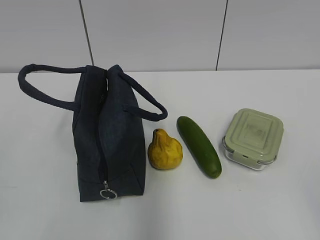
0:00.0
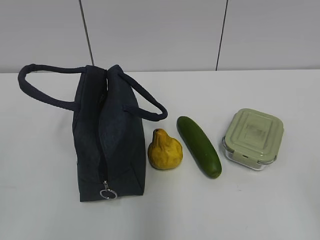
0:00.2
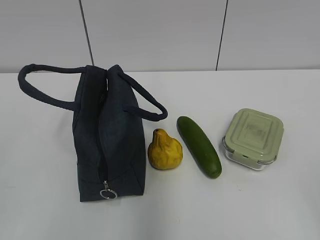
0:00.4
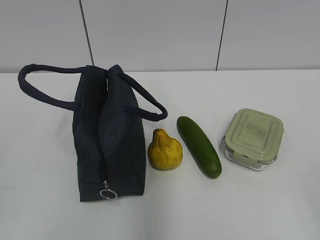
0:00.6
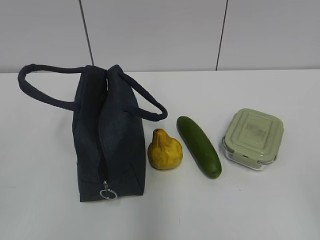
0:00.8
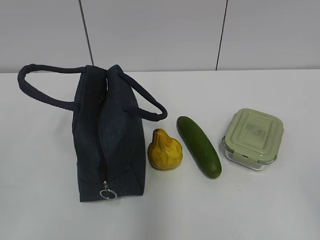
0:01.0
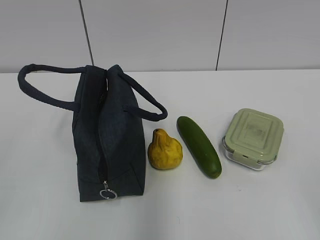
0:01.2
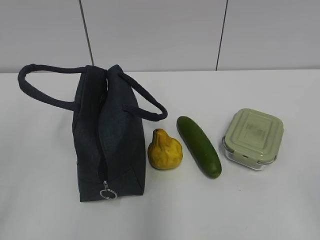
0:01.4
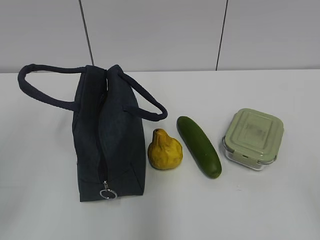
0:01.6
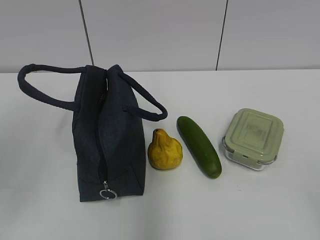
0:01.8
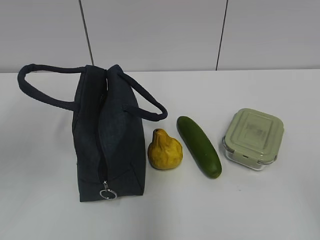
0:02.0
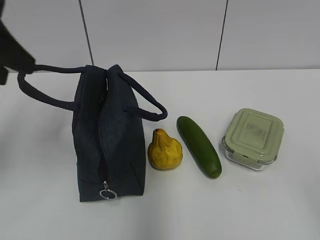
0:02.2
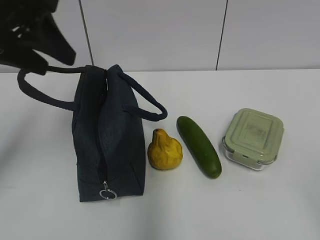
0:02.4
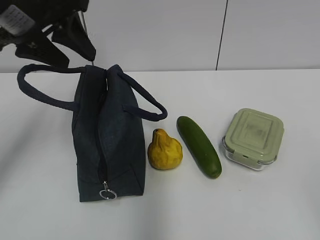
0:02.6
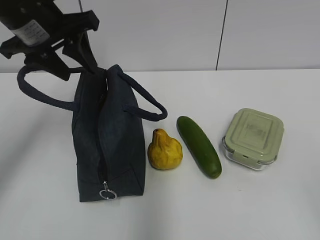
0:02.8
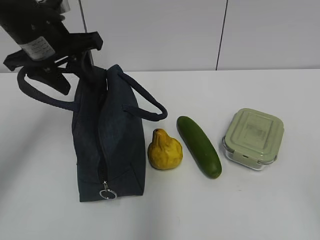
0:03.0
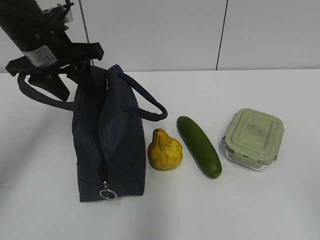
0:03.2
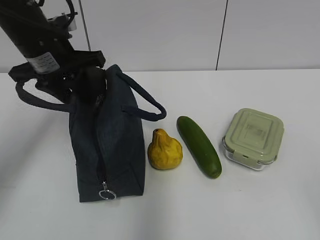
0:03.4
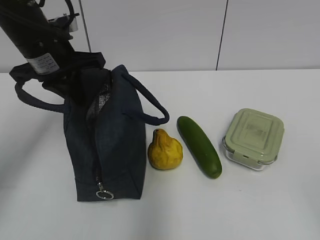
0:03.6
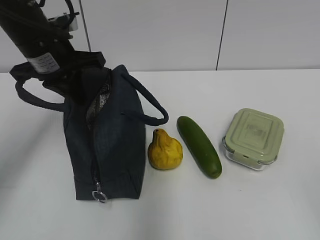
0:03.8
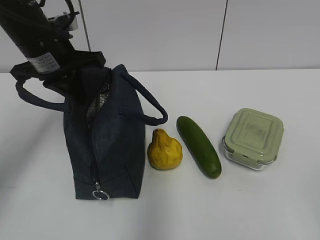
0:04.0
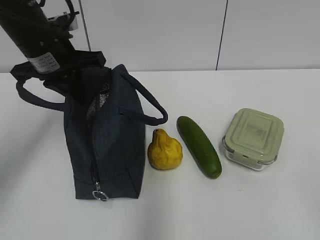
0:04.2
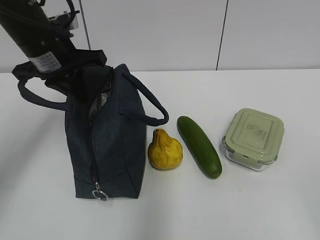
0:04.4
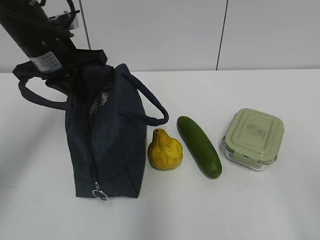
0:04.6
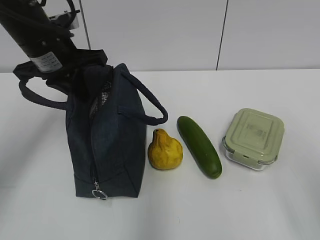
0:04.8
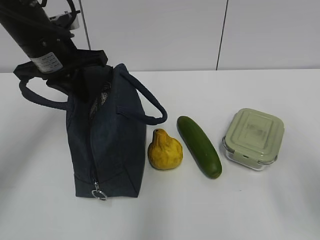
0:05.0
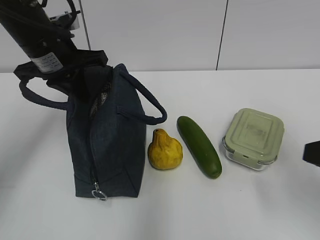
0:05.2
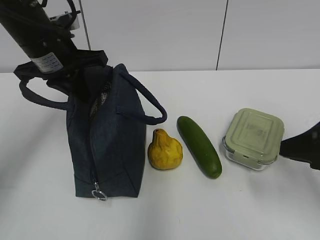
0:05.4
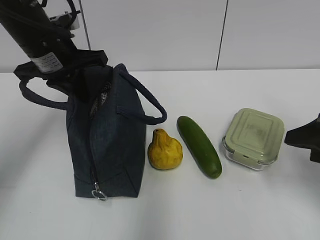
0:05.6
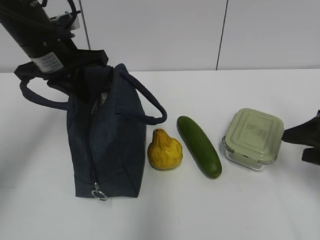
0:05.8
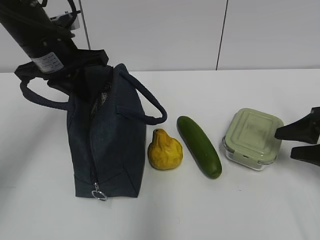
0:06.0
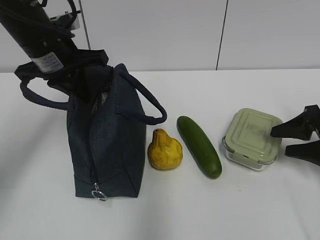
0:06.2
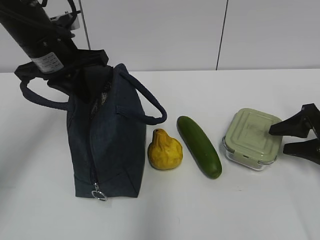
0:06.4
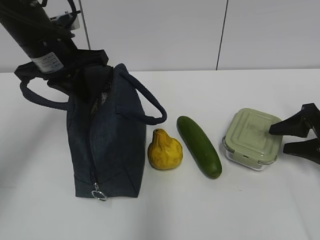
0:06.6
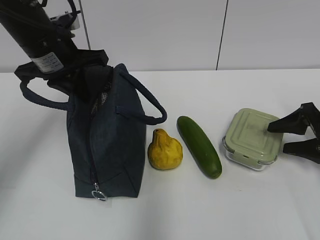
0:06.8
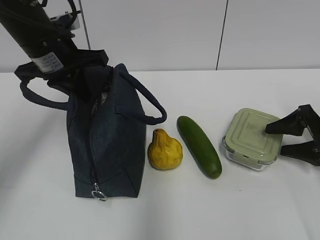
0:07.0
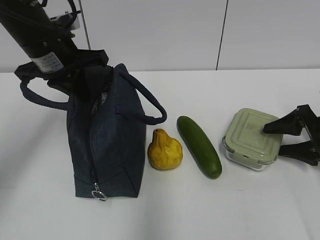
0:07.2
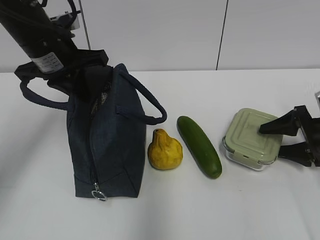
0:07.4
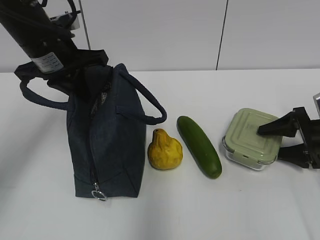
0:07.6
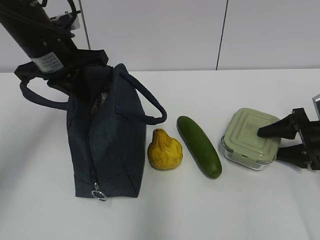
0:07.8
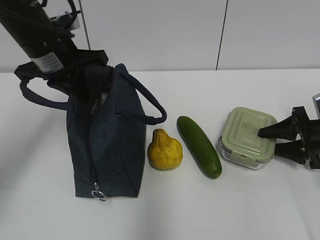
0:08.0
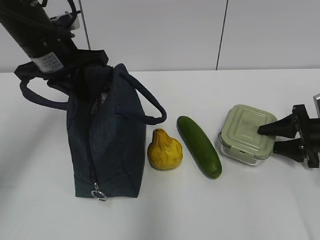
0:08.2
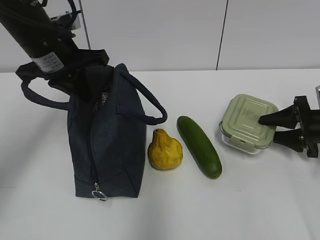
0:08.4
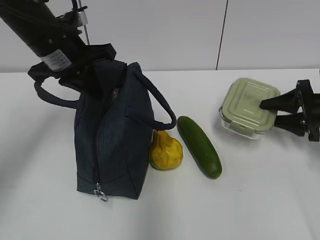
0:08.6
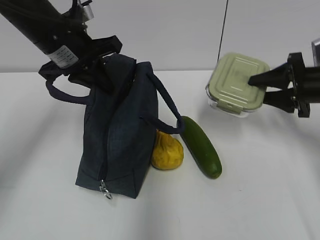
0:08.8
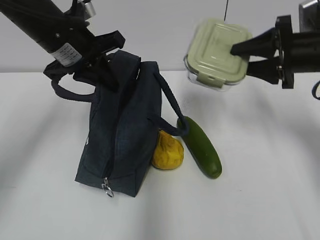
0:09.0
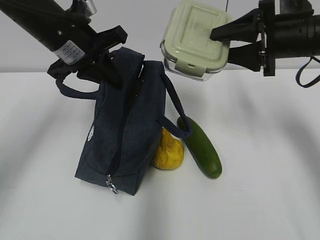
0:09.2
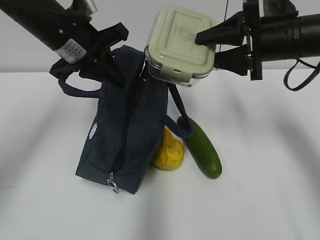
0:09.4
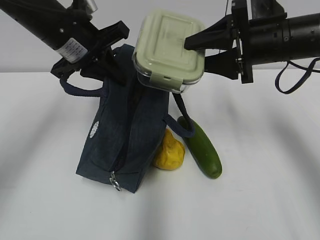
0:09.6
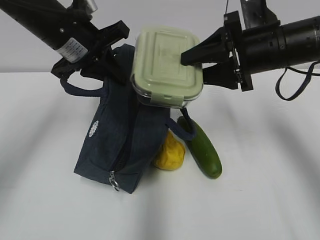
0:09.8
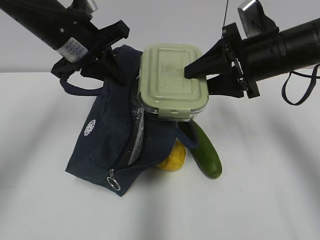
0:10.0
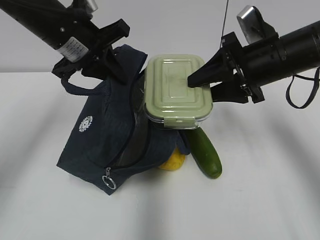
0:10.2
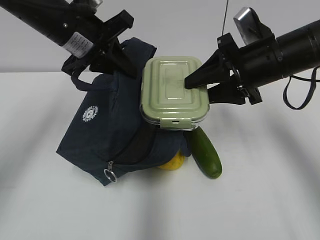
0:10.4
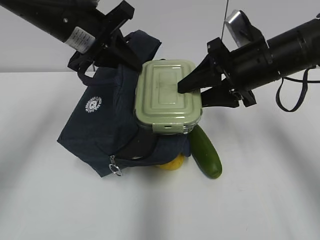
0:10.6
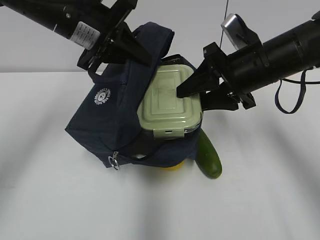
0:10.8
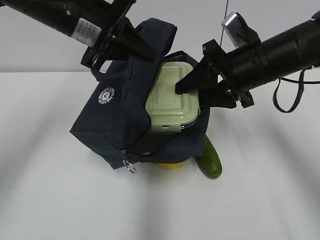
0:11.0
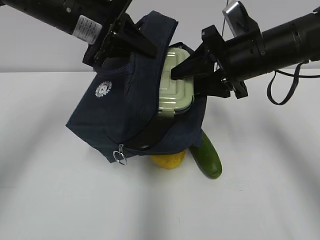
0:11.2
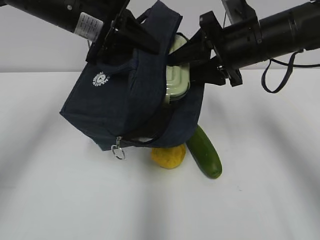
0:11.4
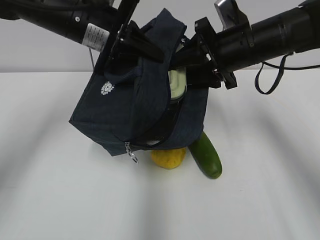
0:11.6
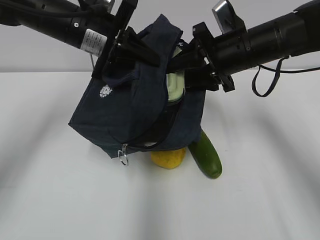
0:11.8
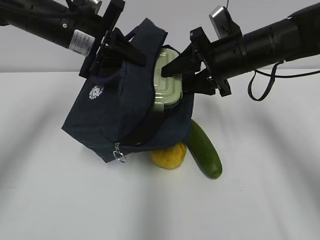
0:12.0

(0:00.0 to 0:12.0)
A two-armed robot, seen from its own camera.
0:01.6 - 0:03.0: The left gripper travels forward by roughly 30 cm.
0:03.0 - 0:04.4: The left gripper closes its fingers.
0:04.4 - 0:06.0: The right gripper is displaced forward and downward by about 30 cm.
0:06.0 - 0:07.6: The right gripper heads forward and downward, covering roughly 10 cm.
0:07.6 - 0:09.0: The right gripper moves upward and to the left, approximately 15 cm.
0:09.0 - 0:10.4: The right gripper heads to the left, covering some 10 cm.
0:10.4 - 0:12.0: The right gripper ends up about 5 cm from where it was.

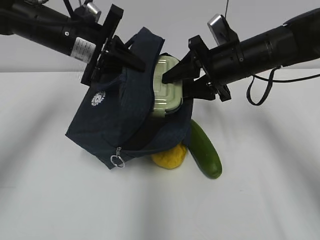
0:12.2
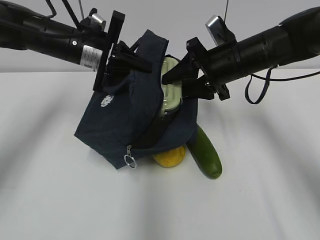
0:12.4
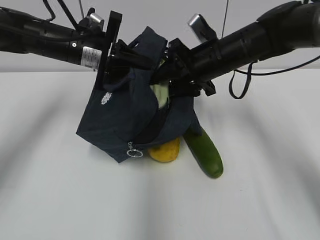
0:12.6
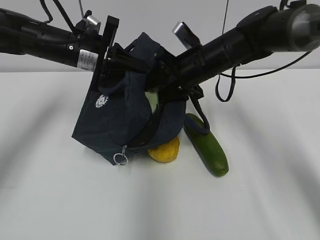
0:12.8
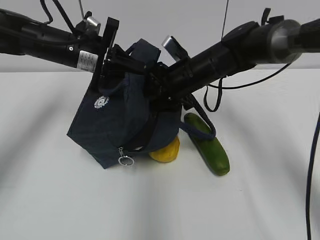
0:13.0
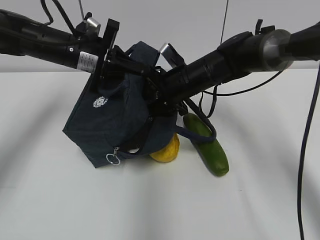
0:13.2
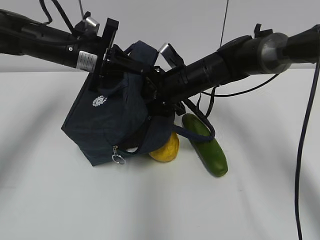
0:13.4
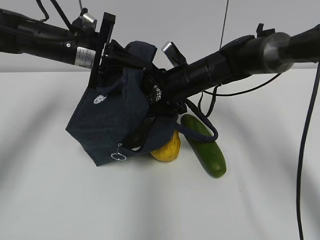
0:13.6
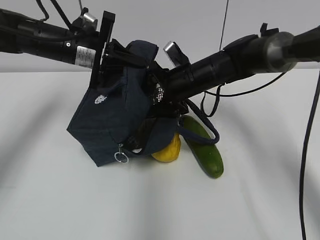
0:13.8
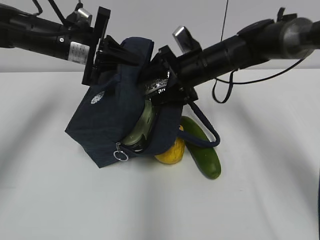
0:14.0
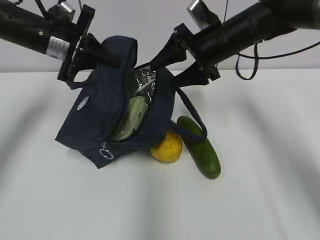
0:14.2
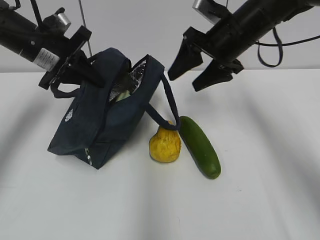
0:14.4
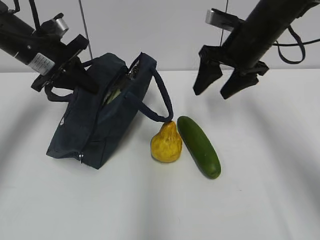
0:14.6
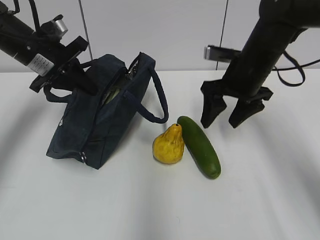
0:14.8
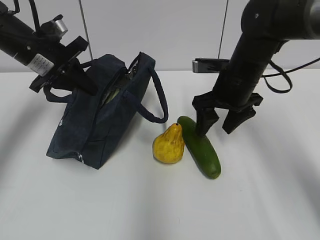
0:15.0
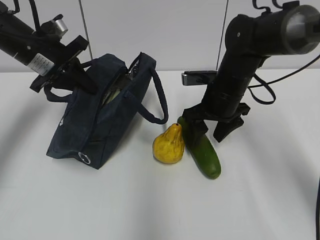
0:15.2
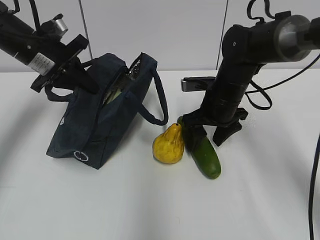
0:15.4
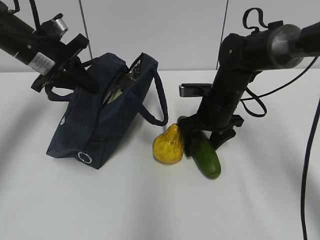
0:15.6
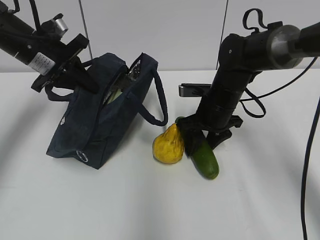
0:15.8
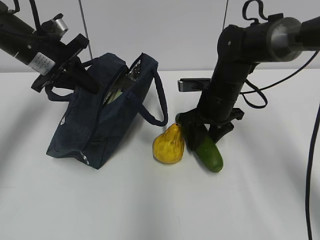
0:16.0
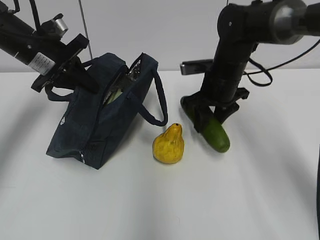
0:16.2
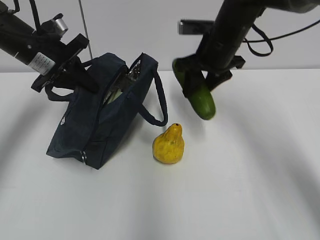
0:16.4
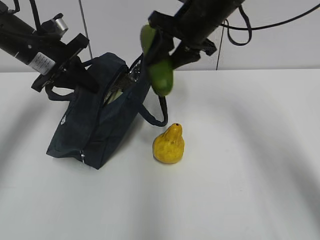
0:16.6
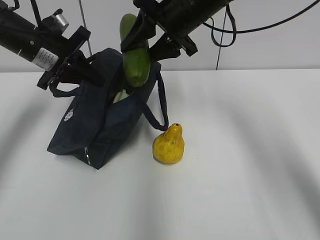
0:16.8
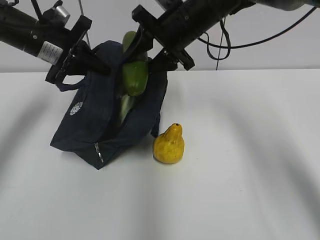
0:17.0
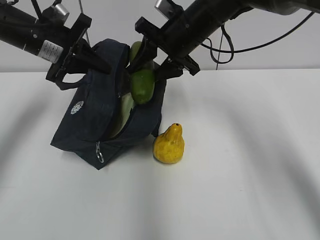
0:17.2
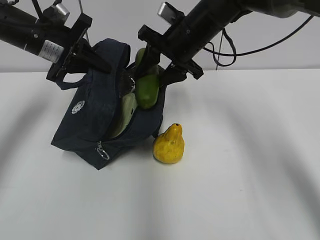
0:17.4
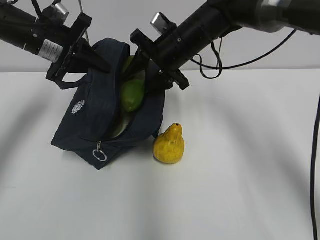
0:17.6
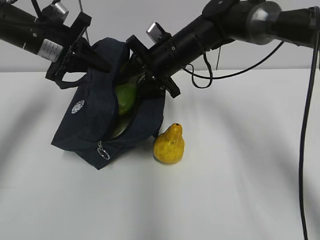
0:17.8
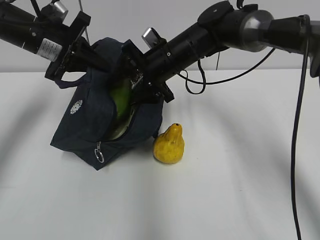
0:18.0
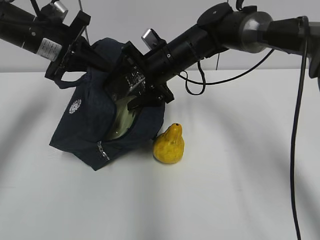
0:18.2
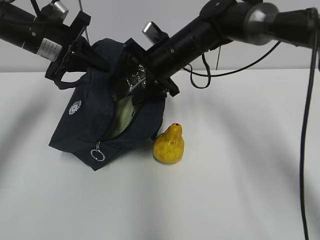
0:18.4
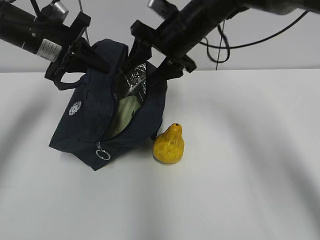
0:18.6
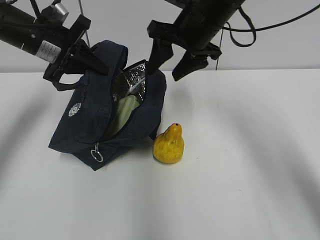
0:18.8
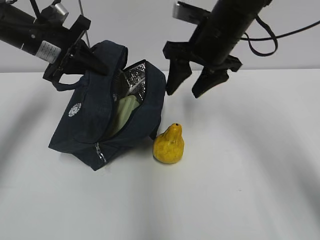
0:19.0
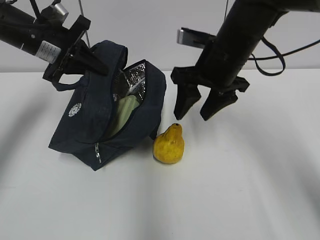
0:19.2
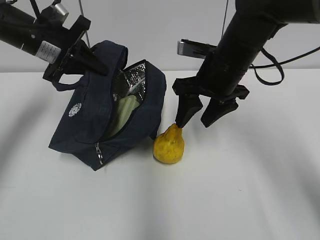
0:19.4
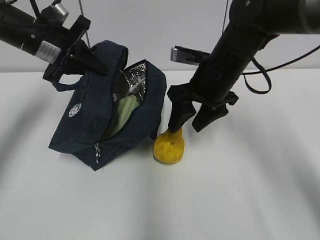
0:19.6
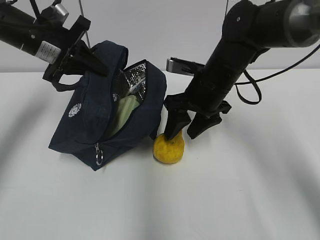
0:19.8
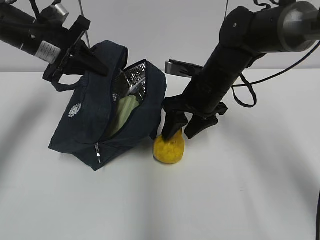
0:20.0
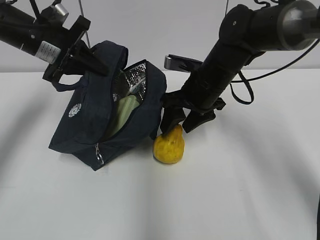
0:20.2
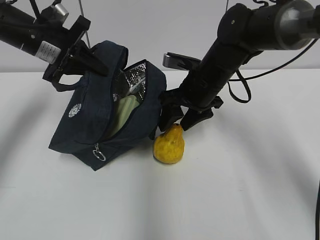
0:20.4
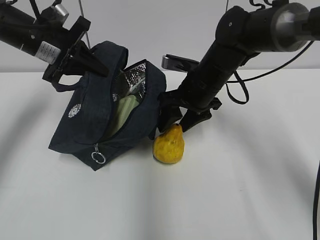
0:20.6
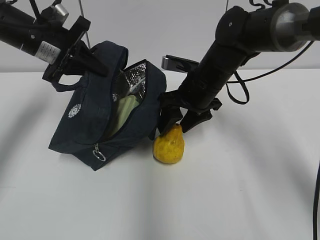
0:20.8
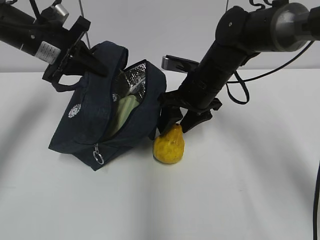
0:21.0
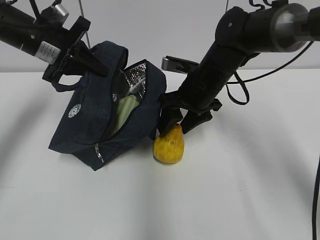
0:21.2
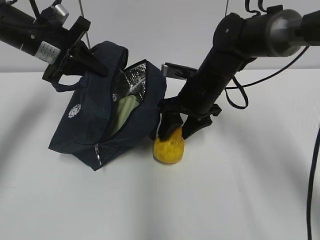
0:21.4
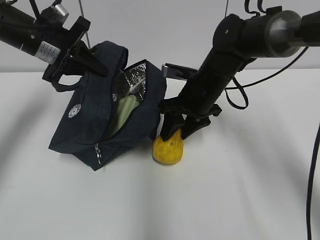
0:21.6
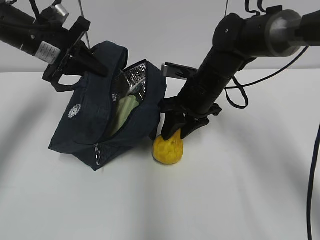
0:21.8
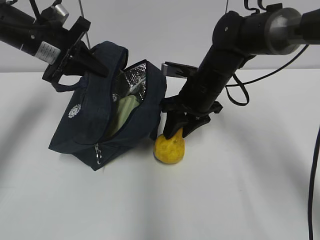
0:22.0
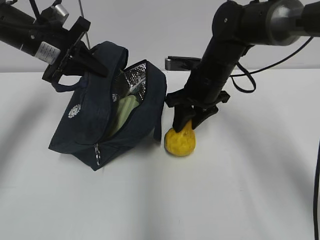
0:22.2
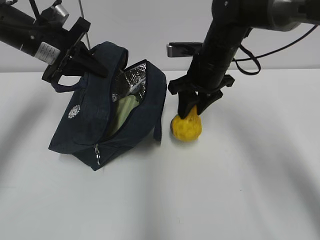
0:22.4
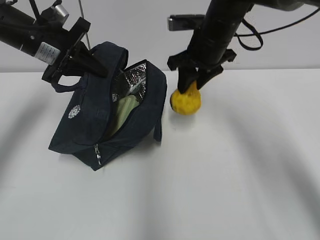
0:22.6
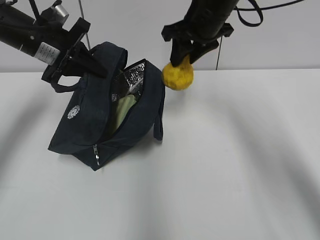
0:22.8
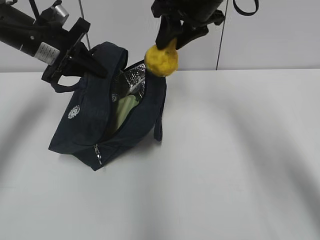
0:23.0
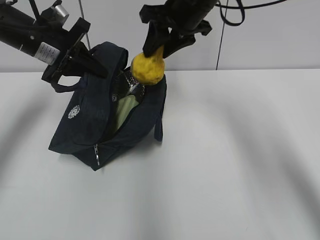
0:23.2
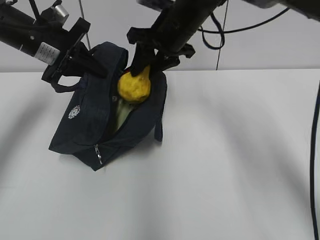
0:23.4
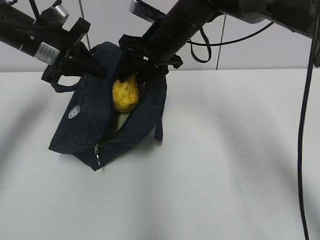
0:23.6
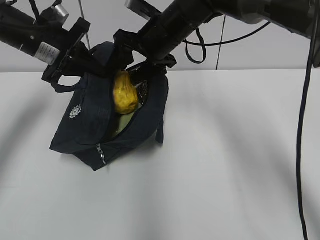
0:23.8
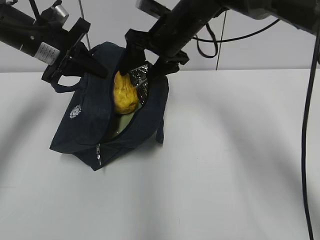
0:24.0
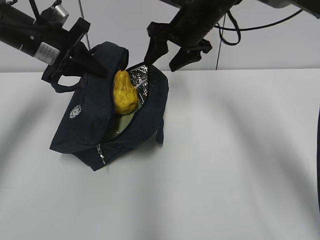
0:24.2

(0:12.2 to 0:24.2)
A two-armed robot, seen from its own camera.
0:12.2 - 0:13.8: The right gripper goes roughly 10 cm to the left and downward, and opens up.
0:13.8 - 0:15.2: The left gripper travels to the left by roughly 5 cm; the right gripper moves to the right, some 5 cm, and travels upward and back again, roughly 10 cm each way.
0:15.2 - 0:16.6: The right gripper shifts about 10 cm upward.
0:16.6 - 0:18.2: The right gripper is displaced downward and to the left by some 10 cm, and opens its fingers.
0:18.2 - 0:19.8: The right gripper shifts approximately 10 cm backward and to the right, and moves roughly 10 cm upward and comes back.
0:19.8 - 0:21.2: The grippers make only small movements.
0:21.2 - 0:22.6: The right gripper travels upward by about 5 cm.
0:22.6 - 0:24.2: The right gripper goes upward and returns, approximately 10 cm each way, and opens.
